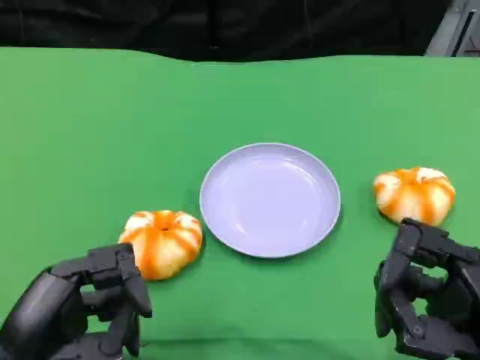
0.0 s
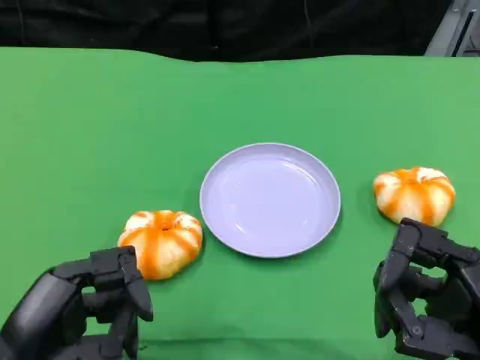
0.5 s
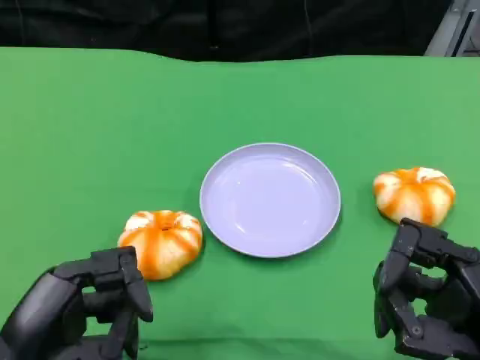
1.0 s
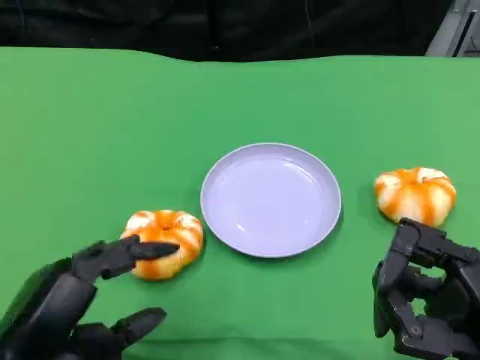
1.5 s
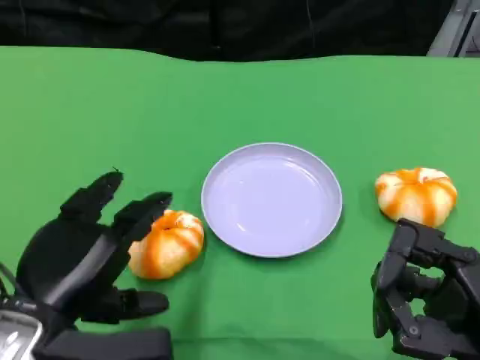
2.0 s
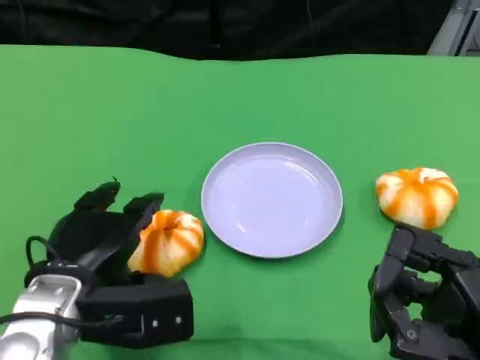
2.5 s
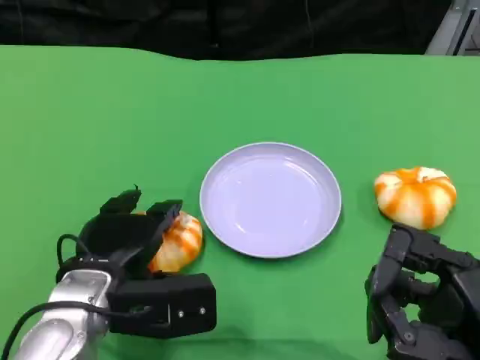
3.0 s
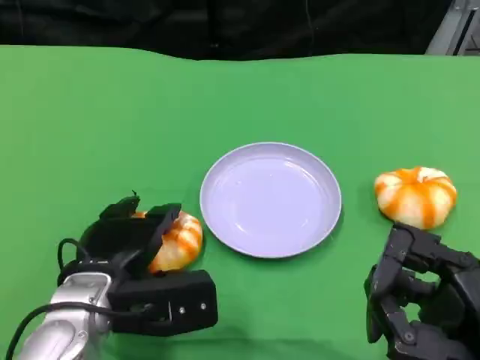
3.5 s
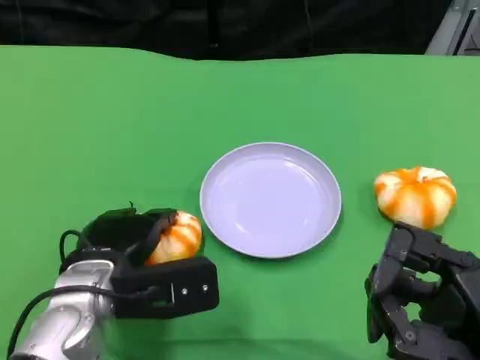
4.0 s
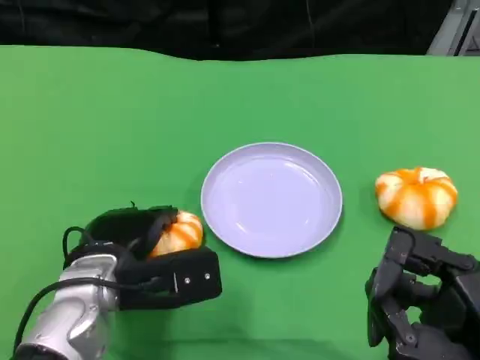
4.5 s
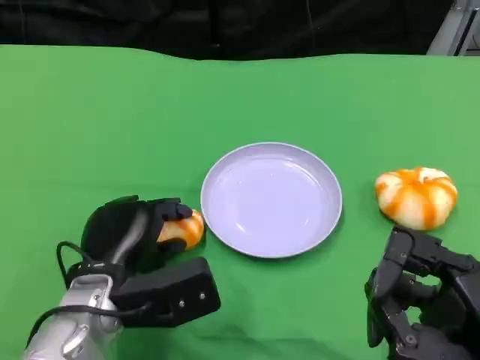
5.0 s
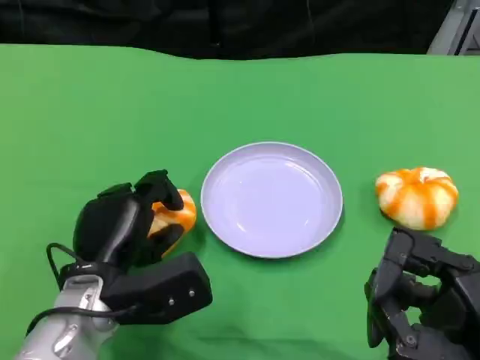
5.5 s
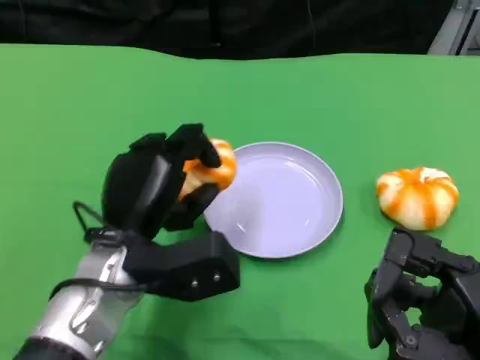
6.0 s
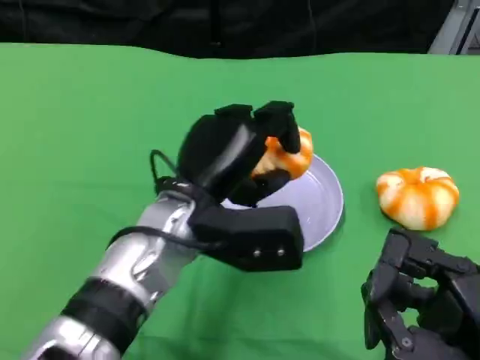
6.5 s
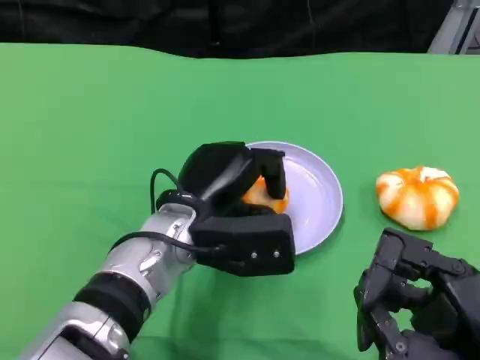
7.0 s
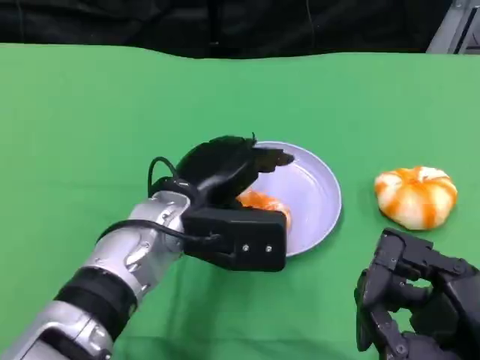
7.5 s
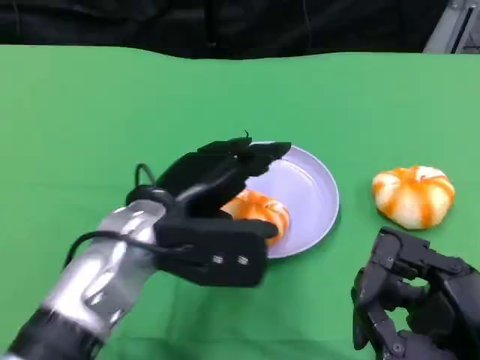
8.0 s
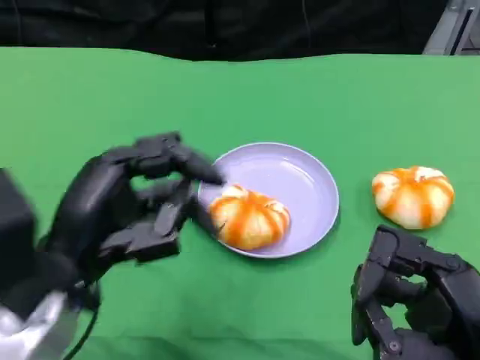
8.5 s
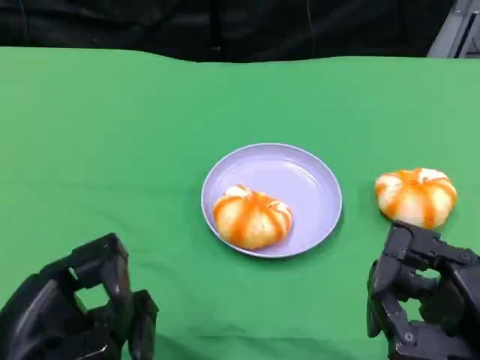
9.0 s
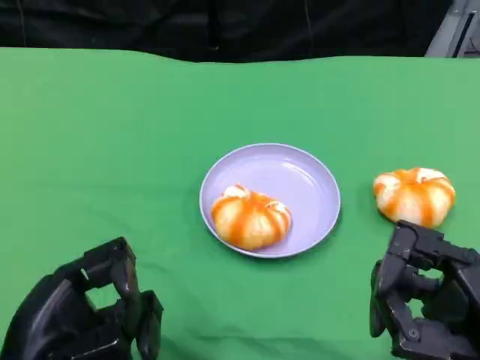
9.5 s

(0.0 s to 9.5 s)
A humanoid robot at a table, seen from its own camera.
Task of the whole recording: Grasp the bread from the table and place it into the plate.
0.0 s - 2.0 s: The left hand ends up some 5 cm from where it was.
2.0 s - 4.0 s: The left hand travels forward and downward by approximately 10 cm.
5.5 s - 7.5 s: The left hand shifts about 10 cm to the right and upward.
7.5 s - 9.5 s: The left hand shifts some 20 cm backward and to the left.

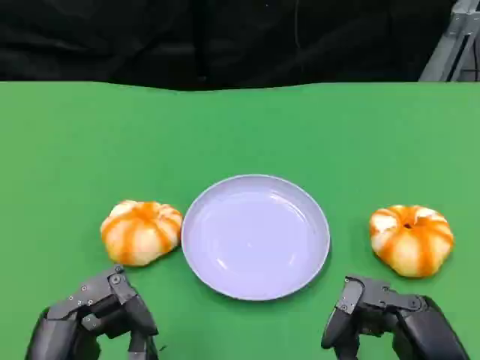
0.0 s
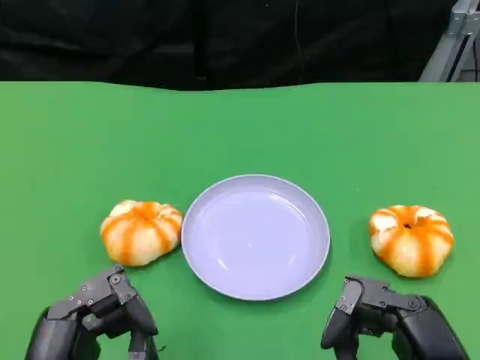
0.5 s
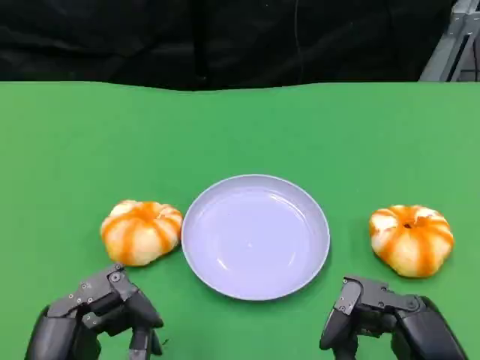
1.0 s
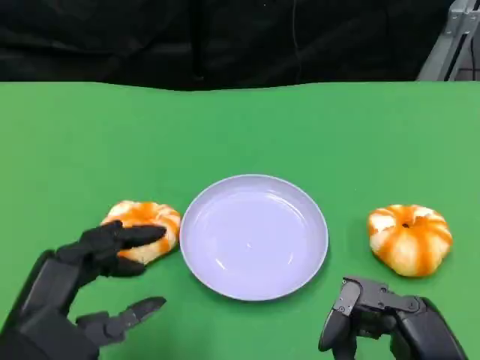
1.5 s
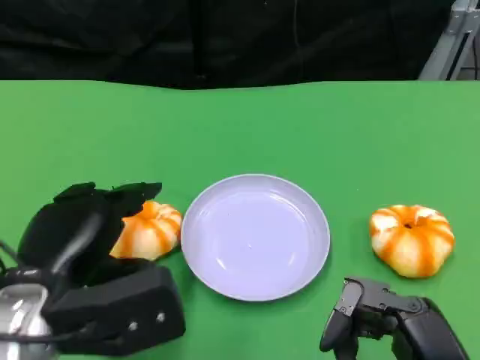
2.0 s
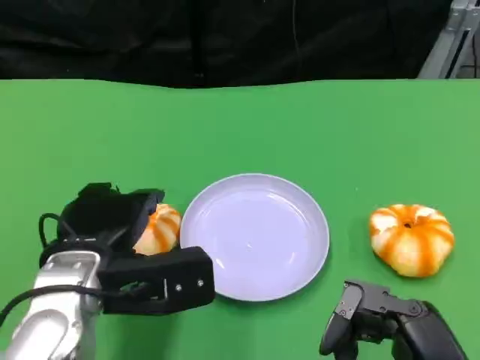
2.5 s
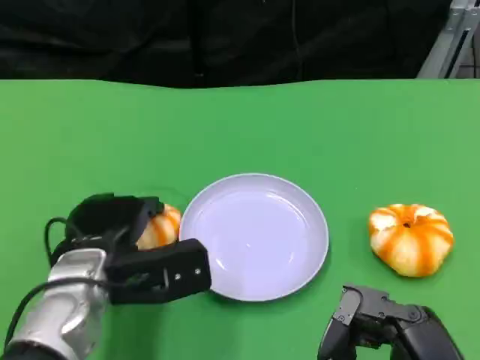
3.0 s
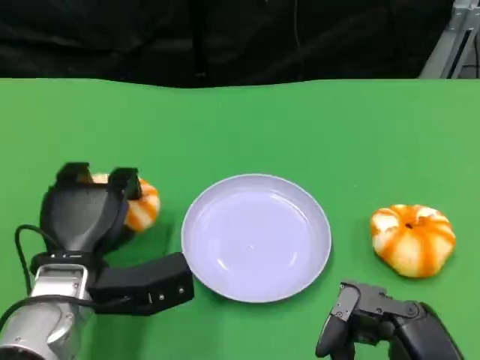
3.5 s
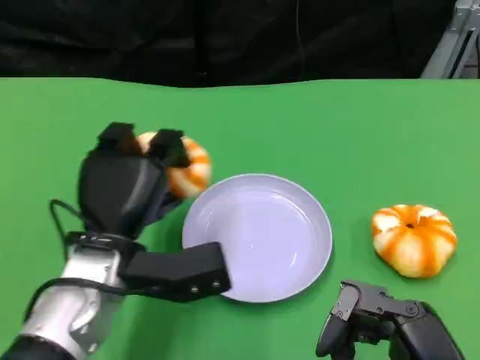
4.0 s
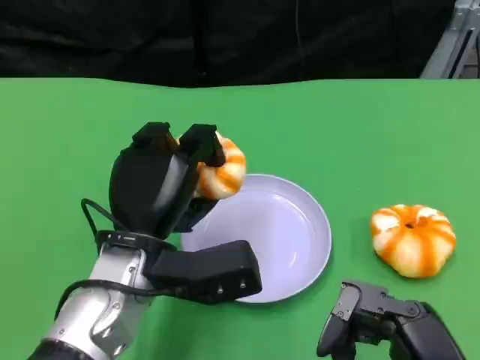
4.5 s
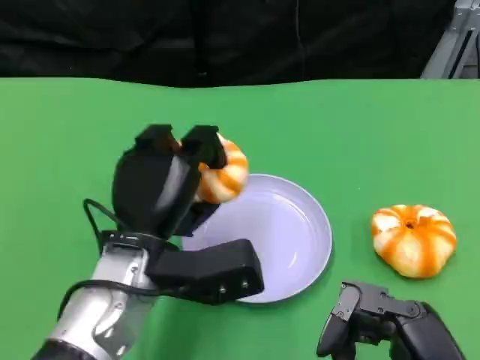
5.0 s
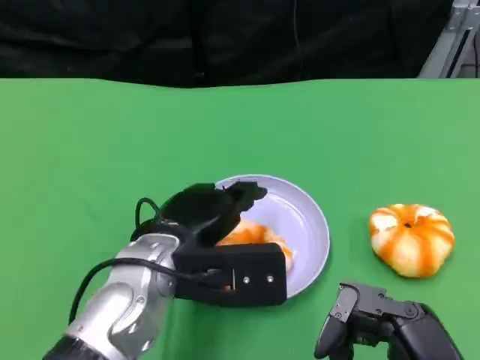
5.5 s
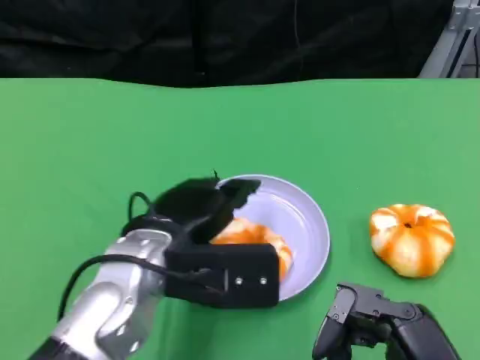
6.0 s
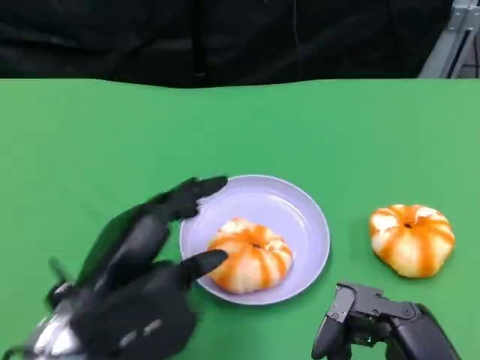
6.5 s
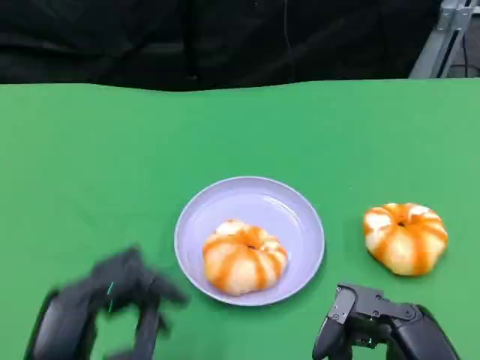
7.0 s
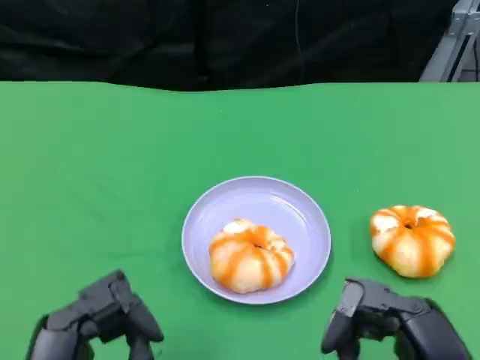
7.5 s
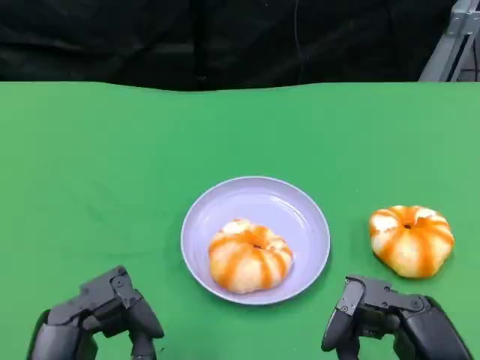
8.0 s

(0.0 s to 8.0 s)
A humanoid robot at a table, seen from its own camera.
Task of the whole recording: Grasp the bread from the table and place it into the plate.
0.0 s - 2.0 s: The left hand moves forward, roughly 10 cm.
2.0 s - 4.0 s: The left hand is displaced forward and to the right by roughly 10 cm.
6.0 s - 8.0 s: The left hand travels backward and to the left by about 15 cm.

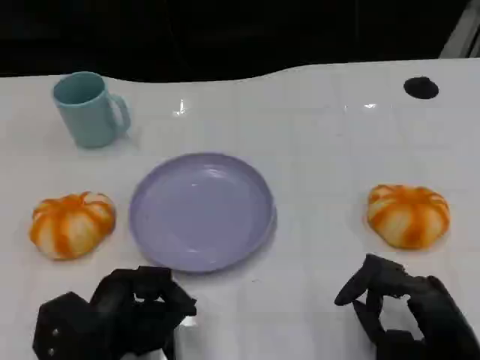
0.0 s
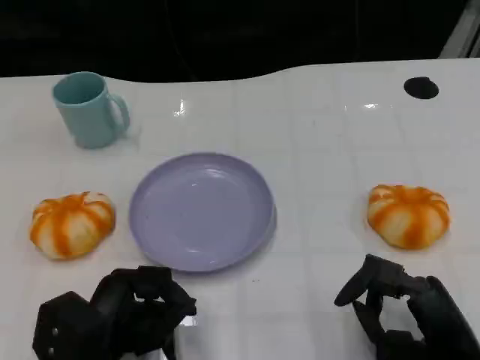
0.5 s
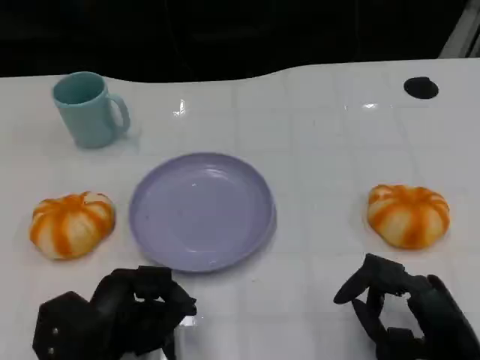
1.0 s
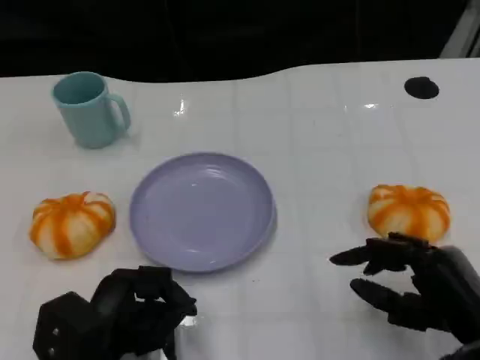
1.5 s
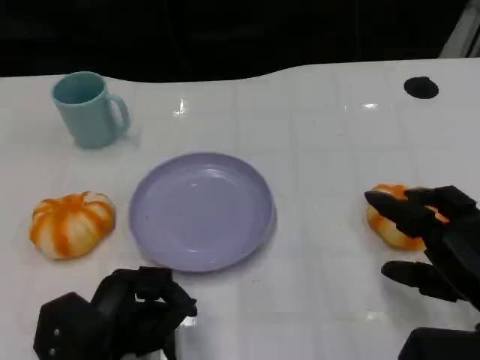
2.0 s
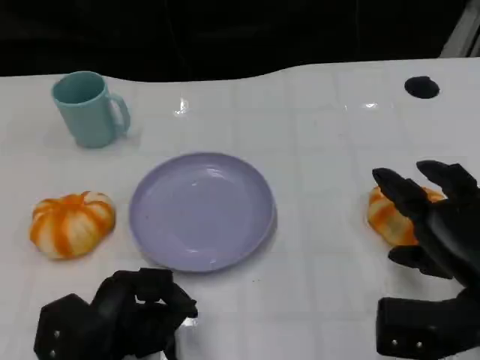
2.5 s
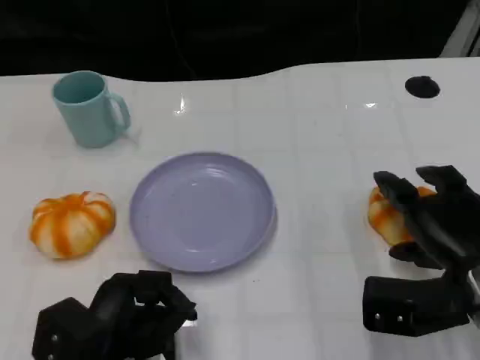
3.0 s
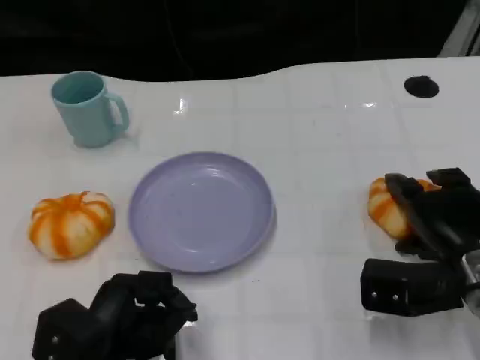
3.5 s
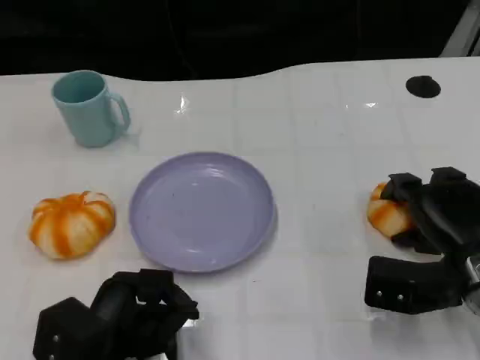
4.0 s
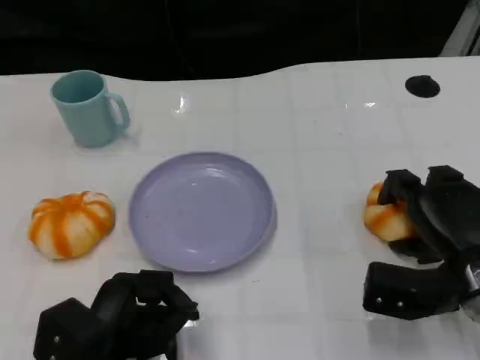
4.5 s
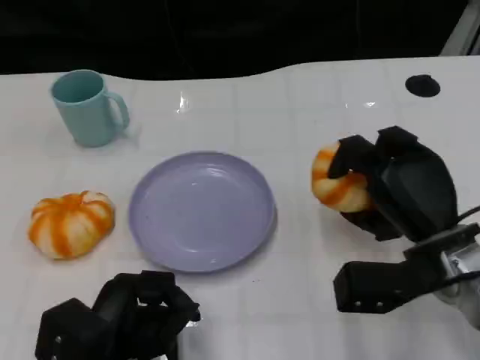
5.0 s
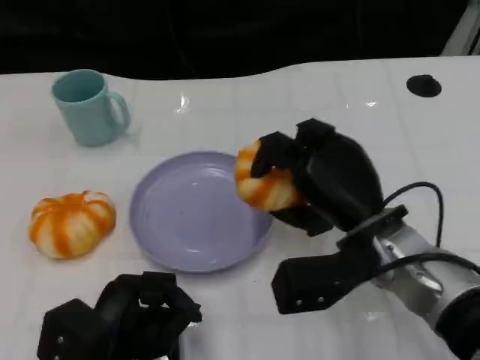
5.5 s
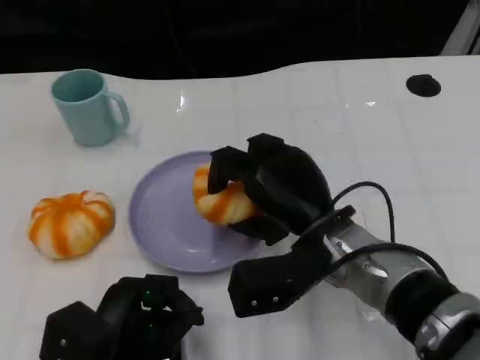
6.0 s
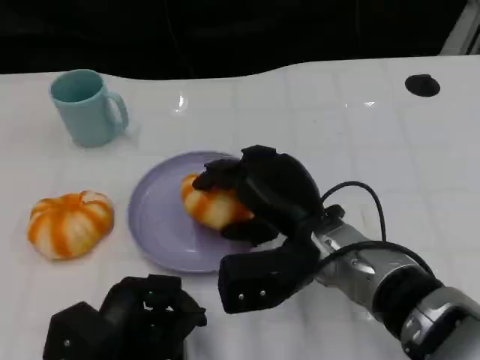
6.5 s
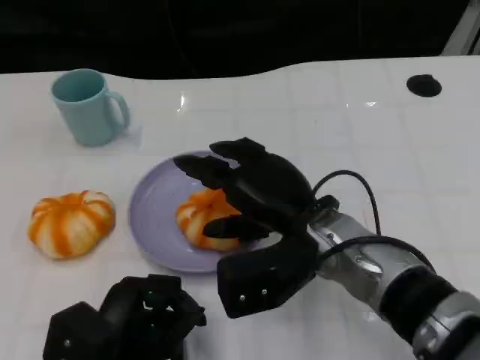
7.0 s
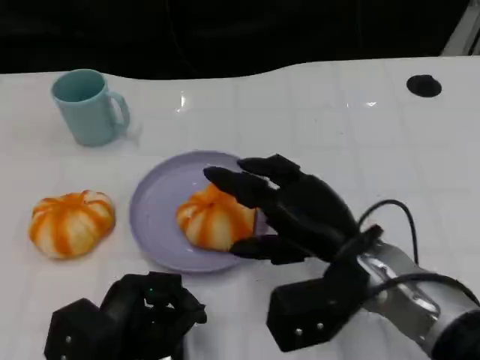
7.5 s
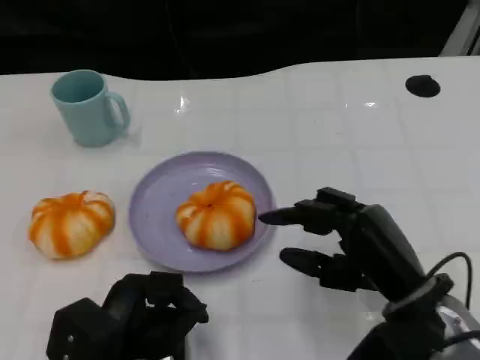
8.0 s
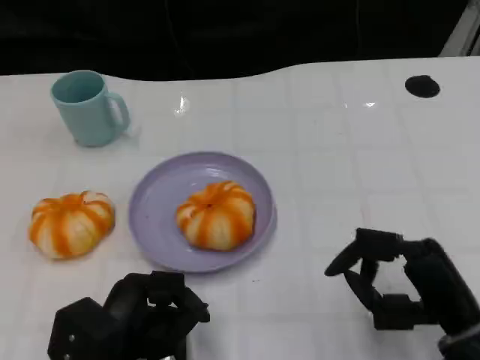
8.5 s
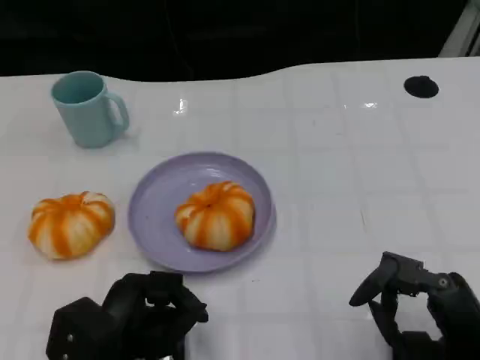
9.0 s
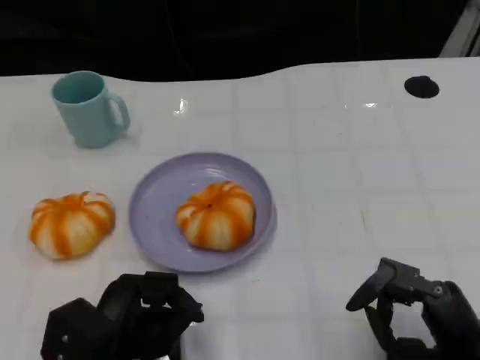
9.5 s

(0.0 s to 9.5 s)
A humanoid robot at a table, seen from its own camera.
Task of the whole recording: Grasp the bread from the table and place it into the plate.
0.0 s - 2.0 s: The right hand travels upward by some 5 cm.
2.0 s - 4.0 s: The right hand goes roughly 5 cm forward.
4.0 s - 5.5 s: The right hand goes approximately 10 cm to the left.
7.5 s - 9.5 s: The right hand heads backward, to the right and downward, covering approximately 15 cm.
